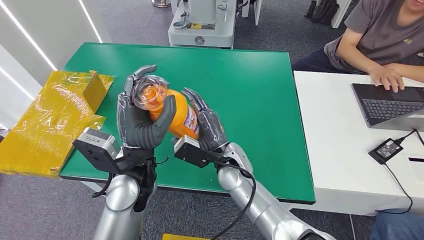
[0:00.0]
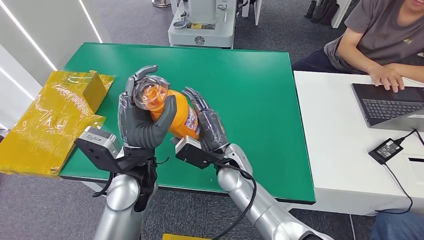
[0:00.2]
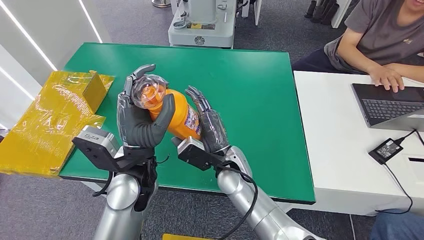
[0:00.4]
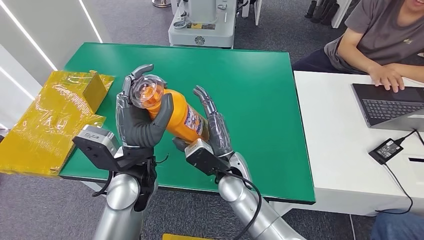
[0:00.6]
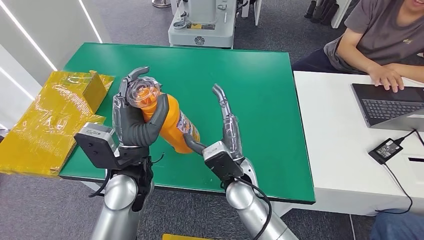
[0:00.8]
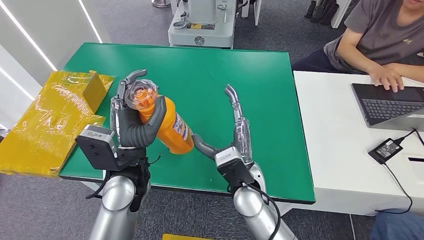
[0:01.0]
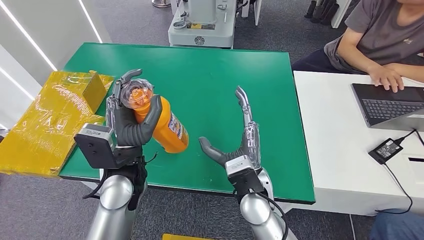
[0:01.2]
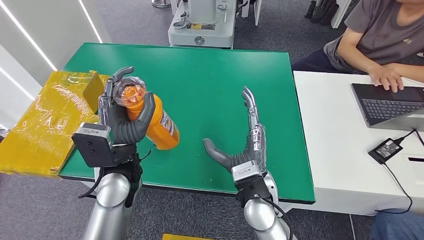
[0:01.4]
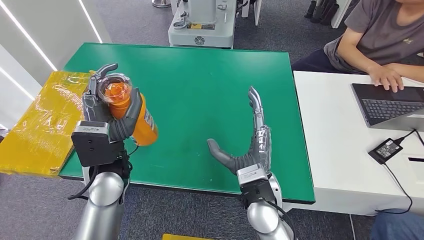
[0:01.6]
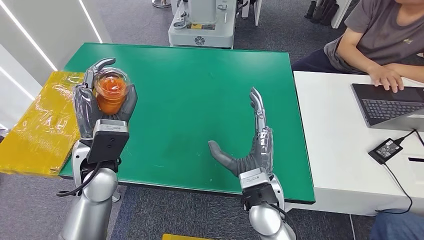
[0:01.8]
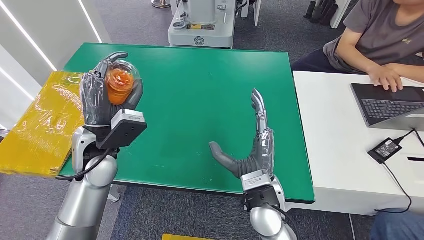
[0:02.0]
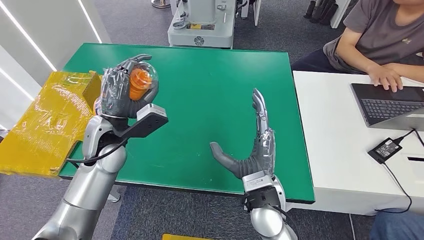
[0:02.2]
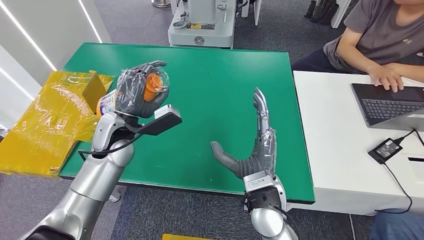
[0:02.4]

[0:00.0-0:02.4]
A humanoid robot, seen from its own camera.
Step, 0:00.0 to 0:02.4: Turn the bottle to the front side.
0:00.0 to 0:01.2: The right hand is displaced backward by approximately 5 cm.
0:01.2 to 0:02.4: The left hand is displaced to the left and forward by roughly 15 cm.
